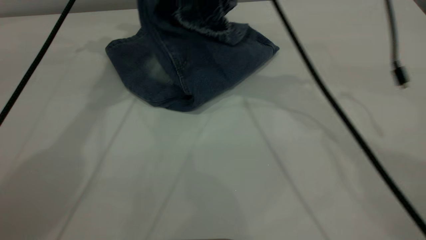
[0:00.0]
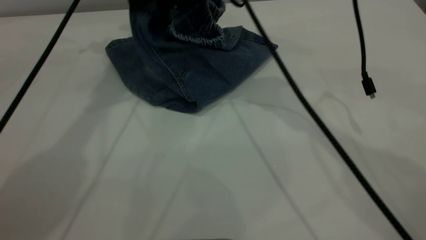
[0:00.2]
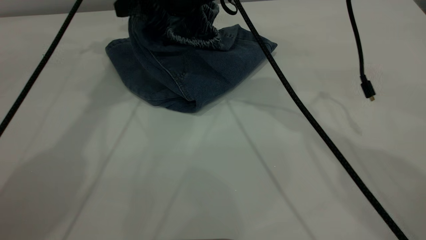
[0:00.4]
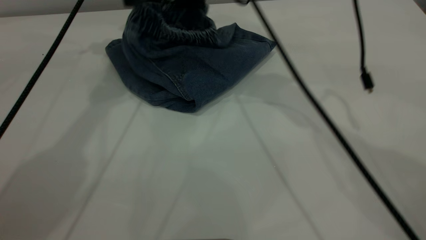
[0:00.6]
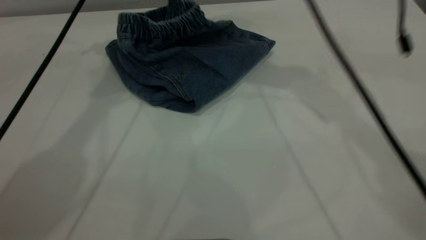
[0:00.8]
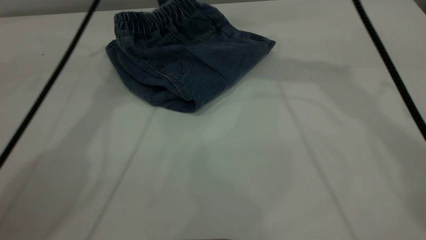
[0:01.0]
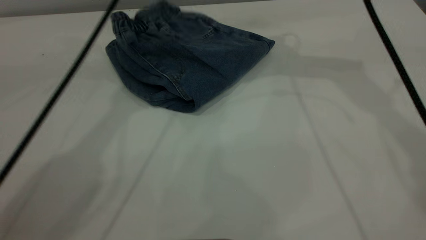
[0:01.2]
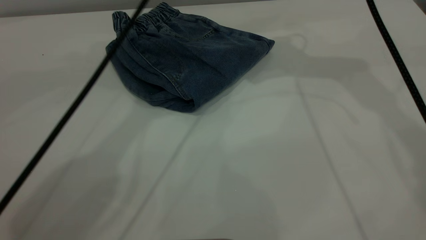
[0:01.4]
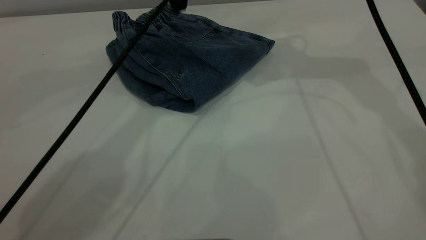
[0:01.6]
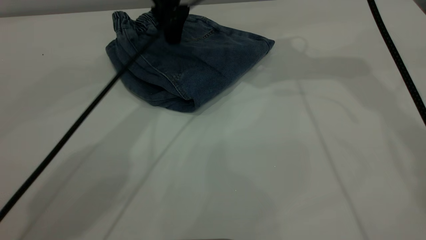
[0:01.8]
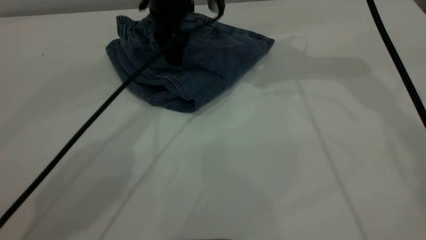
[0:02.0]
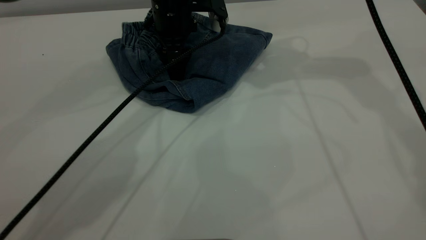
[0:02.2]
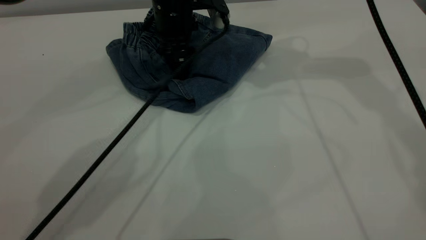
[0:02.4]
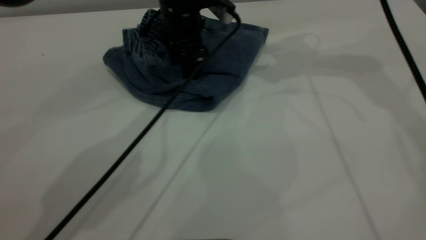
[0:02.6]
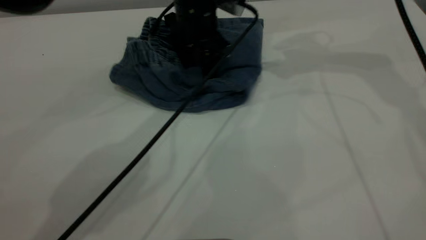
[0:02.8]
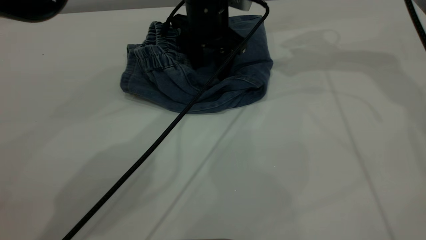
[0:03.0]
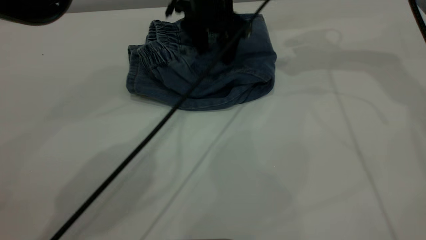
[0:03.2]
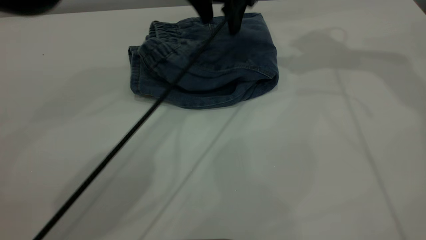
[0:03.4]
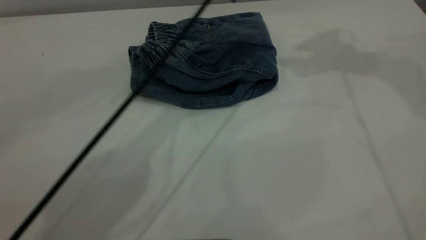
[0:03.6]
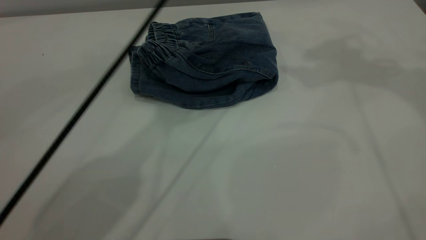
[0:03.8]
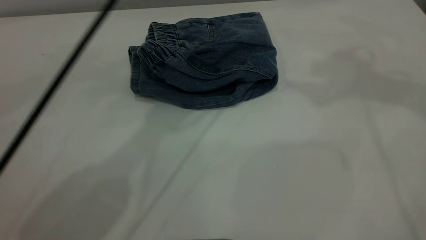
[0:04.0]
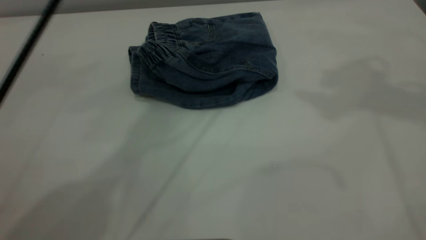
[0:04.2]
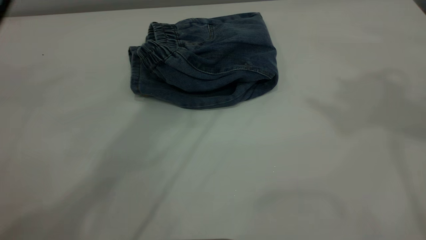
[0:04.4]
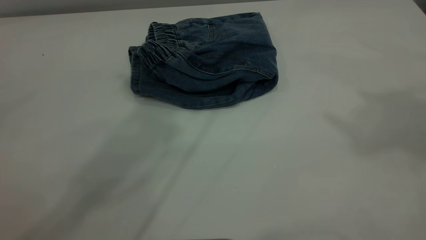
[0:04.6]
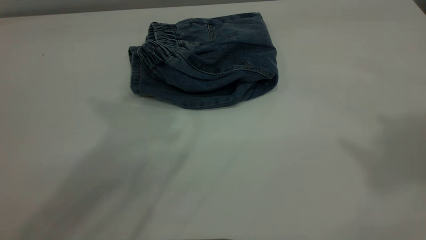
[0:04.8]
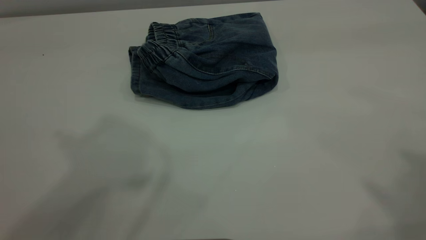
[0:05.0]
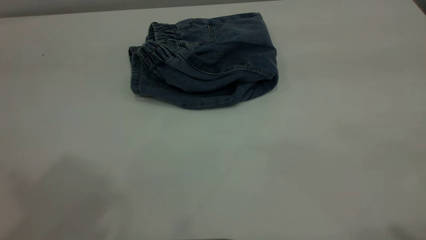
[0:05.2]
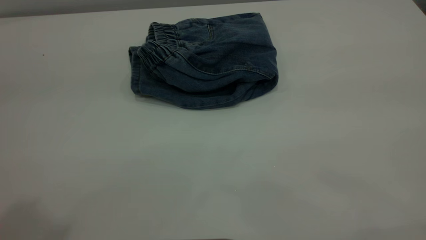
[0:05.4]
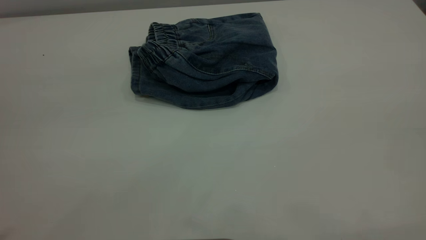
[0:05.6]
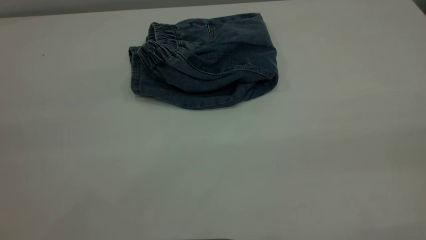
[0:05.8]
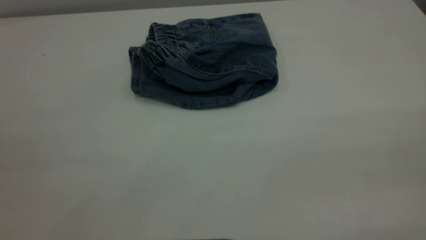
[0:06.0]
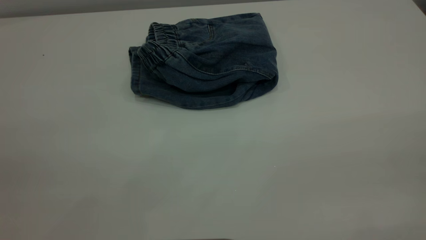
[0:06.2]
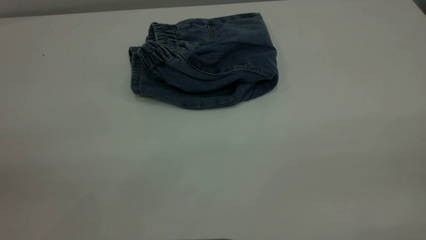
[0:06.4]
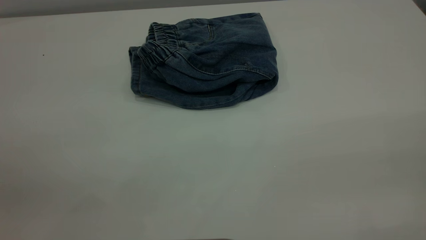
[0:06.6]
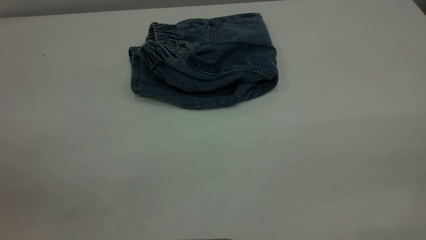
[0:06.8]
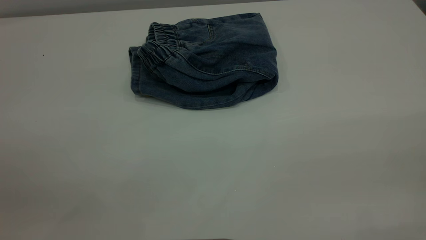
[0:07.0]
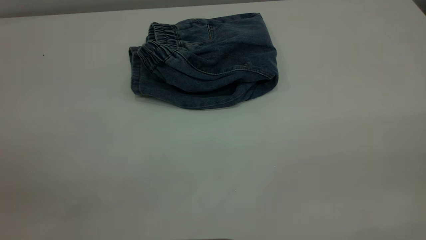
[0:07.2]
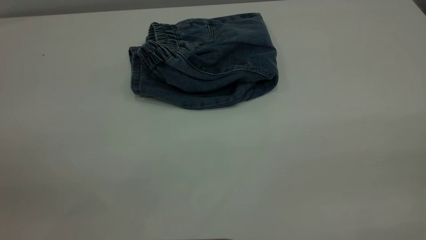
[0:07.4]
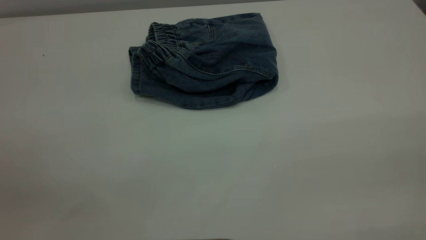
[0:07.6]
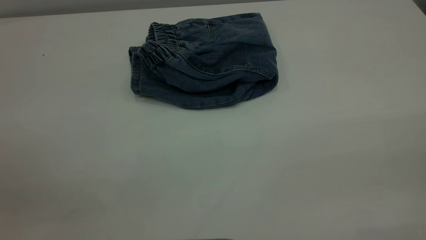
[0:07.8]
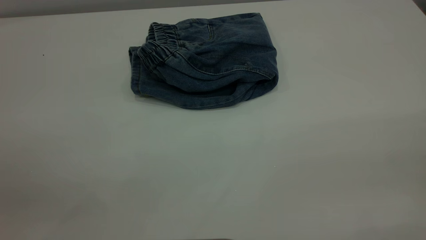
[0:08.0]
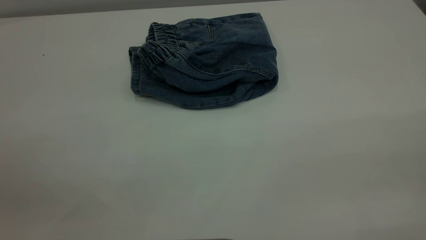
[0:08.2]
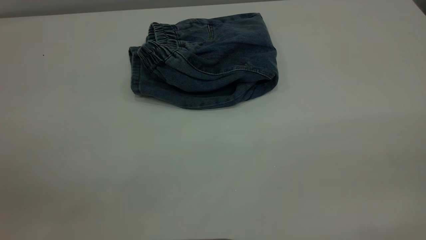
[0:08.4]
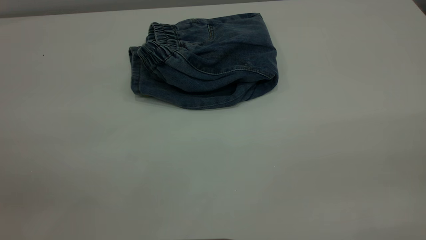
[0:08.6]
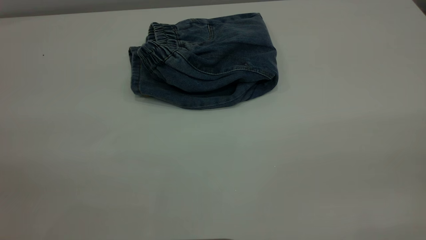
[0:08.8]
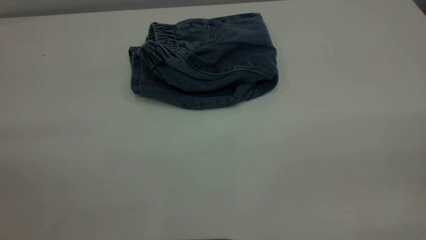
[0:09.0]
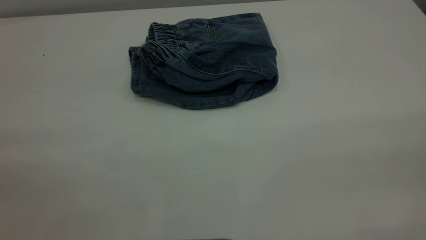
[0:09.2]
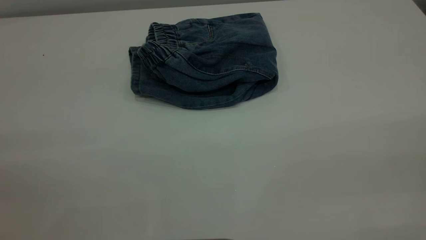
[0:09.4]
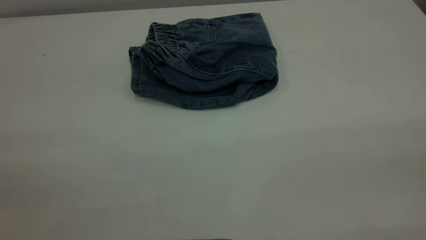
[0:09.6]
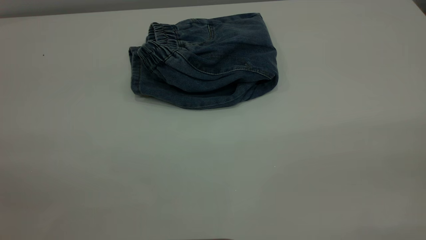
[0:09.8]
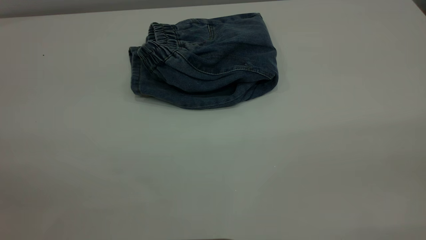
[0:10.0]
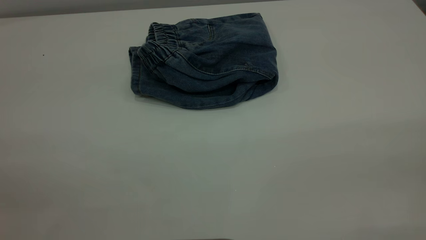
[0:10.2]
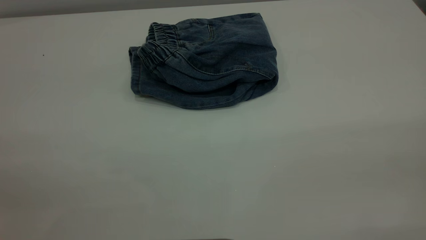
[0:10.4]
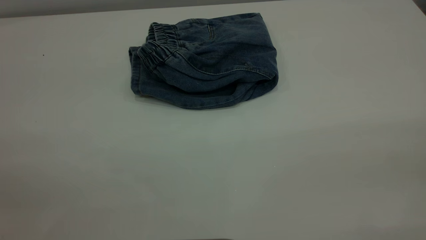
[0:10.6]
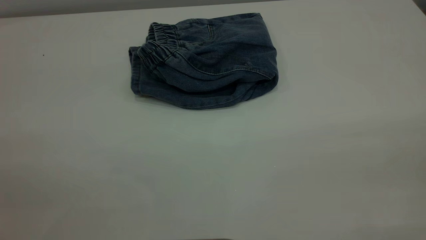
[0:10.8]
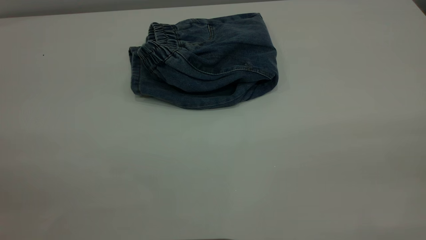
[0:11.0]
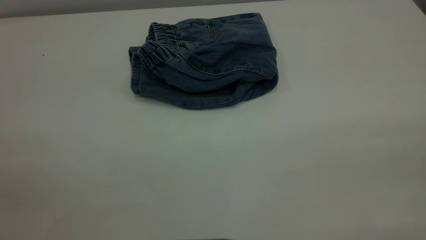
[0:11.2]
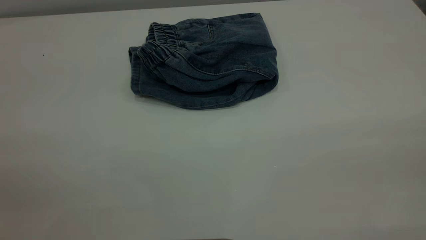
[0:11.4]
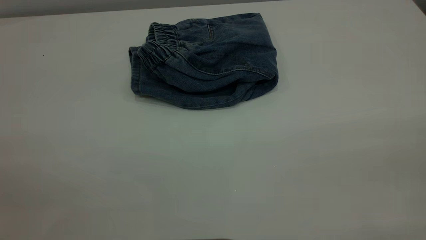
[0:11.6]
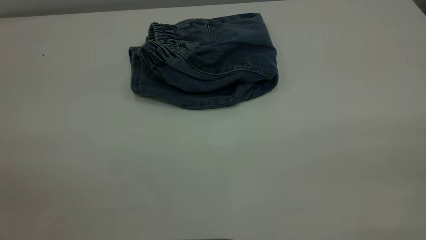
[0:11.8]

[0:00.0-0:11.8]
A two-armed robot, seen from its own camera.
0:00.0 to 0:01.4: The left gripper shifts approximately 10 cm to the right, while the right gripper shifts about 15 cm to the right and upward, and opens its fingers.
0:01.4 to 0:03.0: The right gripper goes roughly 5 cm to the right; the left gripper travels downward and to the right by about 15 cm.
0:03.0 to 0:04.4: The right gripper travels upward and backward by approximately 30 cm; the left gripper shifts about 35 cm upward.
